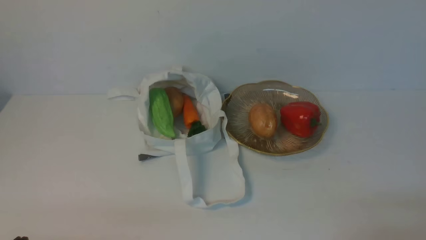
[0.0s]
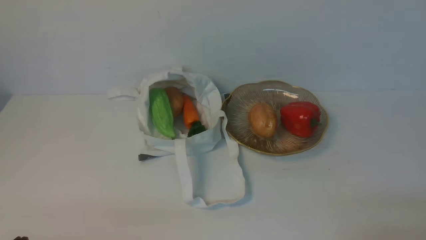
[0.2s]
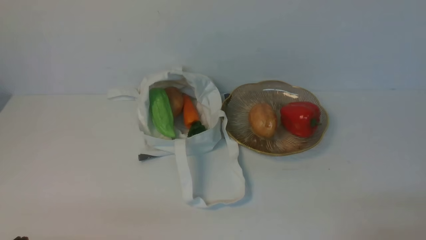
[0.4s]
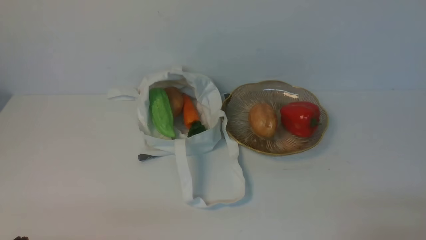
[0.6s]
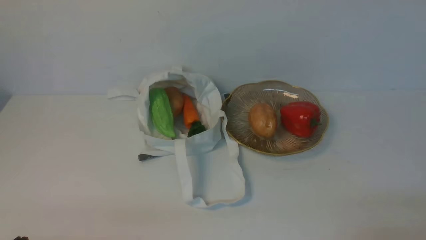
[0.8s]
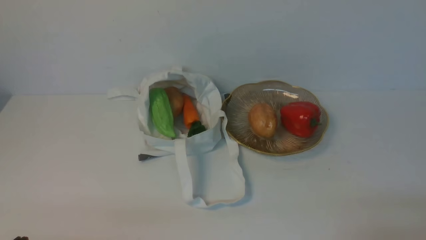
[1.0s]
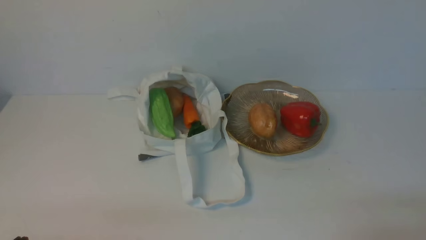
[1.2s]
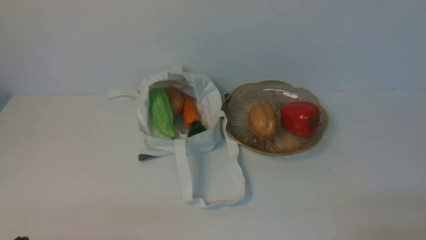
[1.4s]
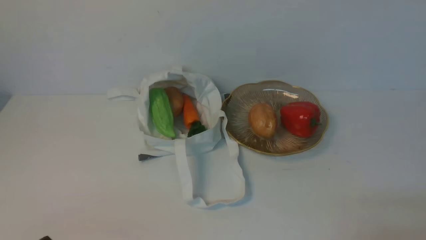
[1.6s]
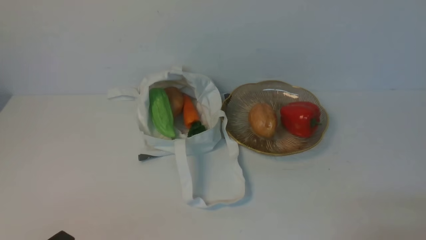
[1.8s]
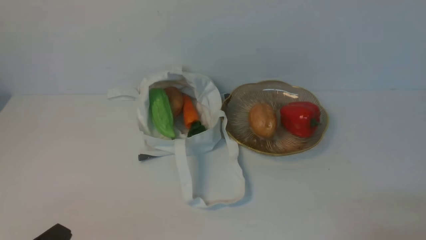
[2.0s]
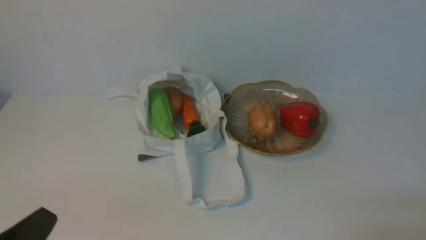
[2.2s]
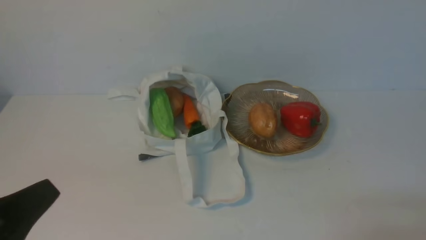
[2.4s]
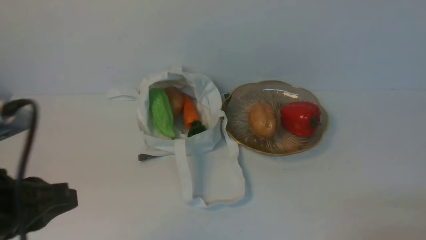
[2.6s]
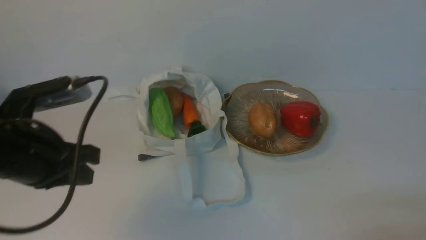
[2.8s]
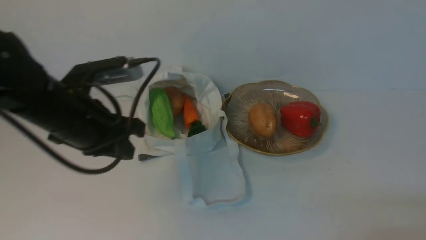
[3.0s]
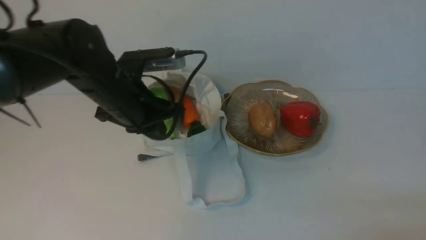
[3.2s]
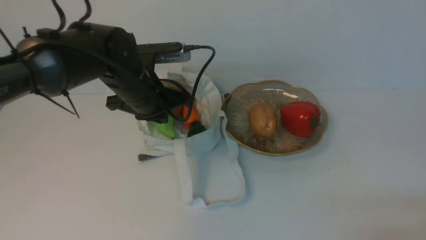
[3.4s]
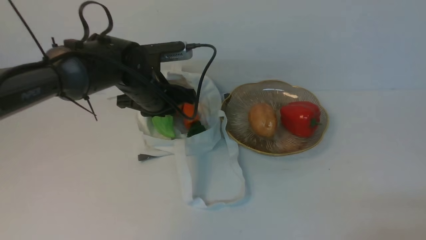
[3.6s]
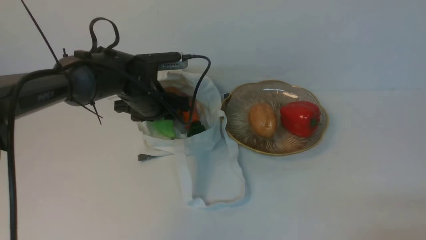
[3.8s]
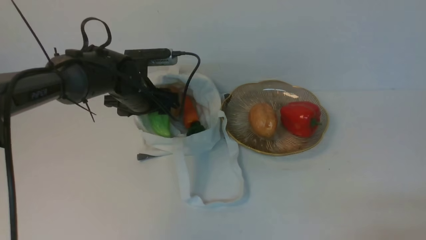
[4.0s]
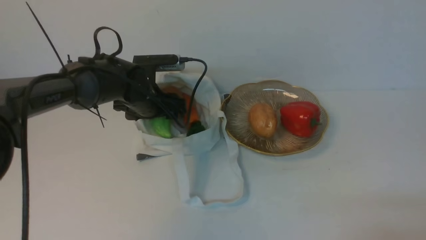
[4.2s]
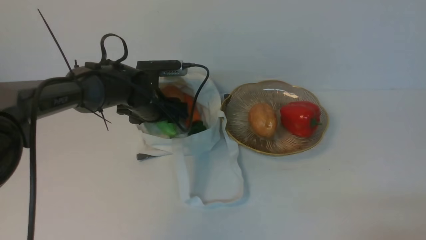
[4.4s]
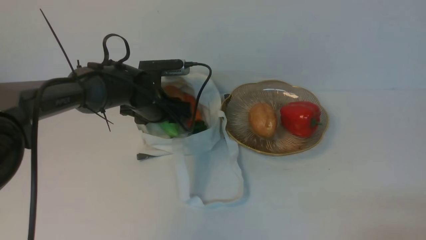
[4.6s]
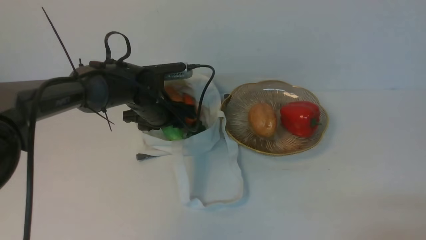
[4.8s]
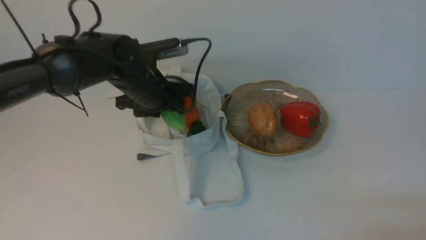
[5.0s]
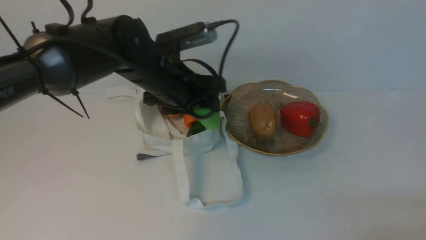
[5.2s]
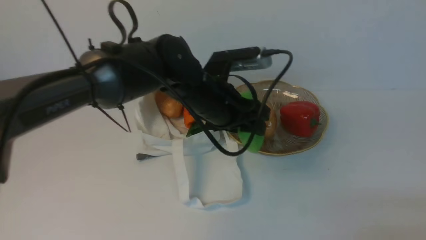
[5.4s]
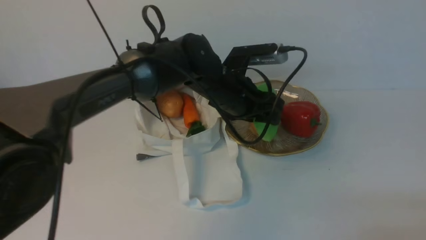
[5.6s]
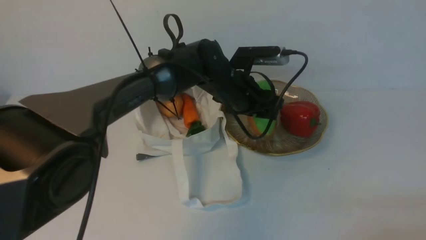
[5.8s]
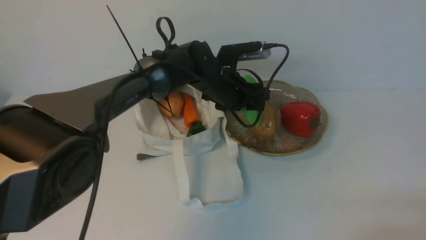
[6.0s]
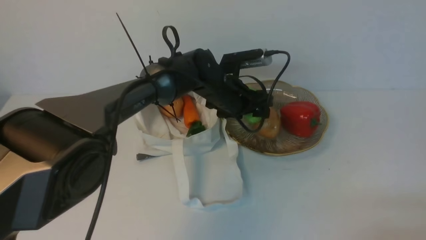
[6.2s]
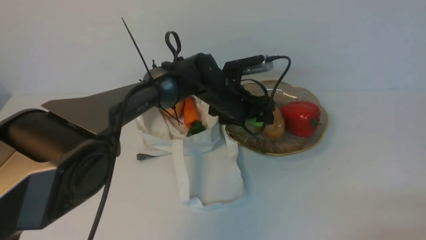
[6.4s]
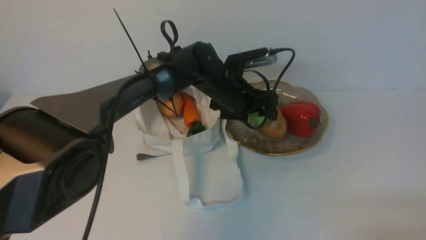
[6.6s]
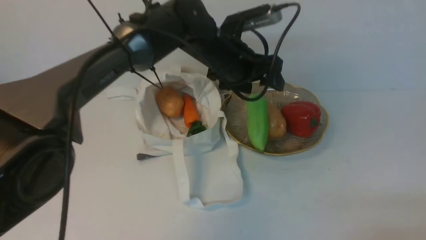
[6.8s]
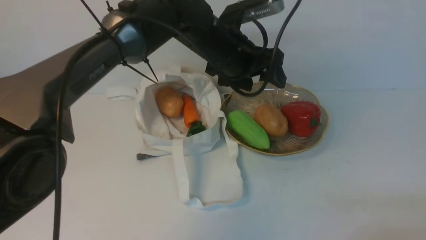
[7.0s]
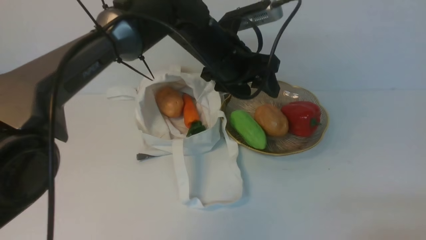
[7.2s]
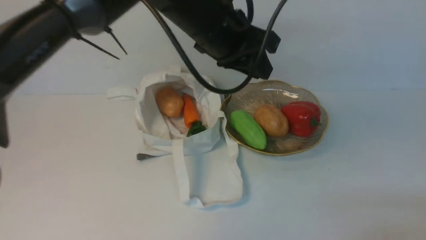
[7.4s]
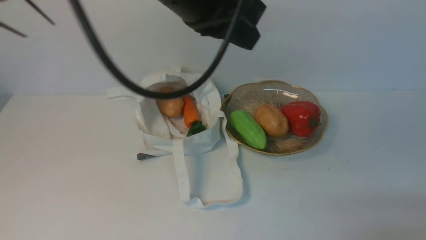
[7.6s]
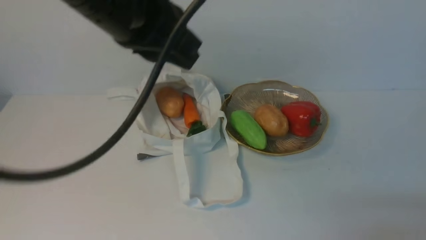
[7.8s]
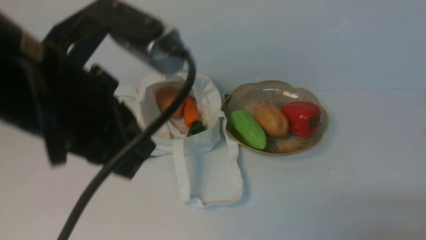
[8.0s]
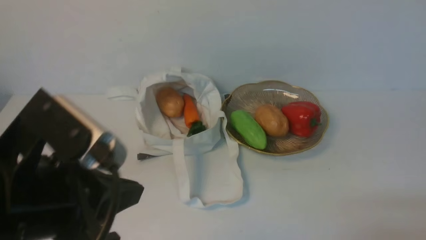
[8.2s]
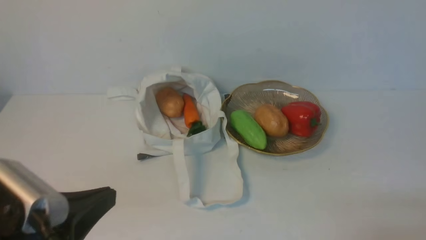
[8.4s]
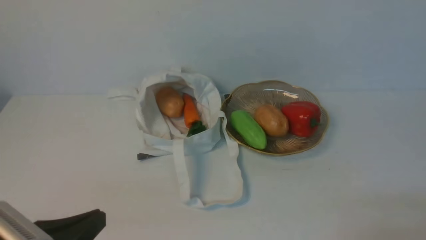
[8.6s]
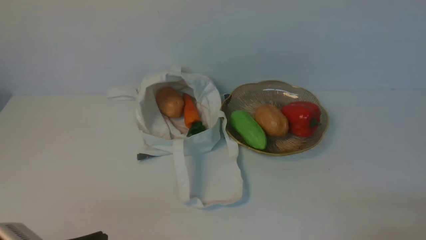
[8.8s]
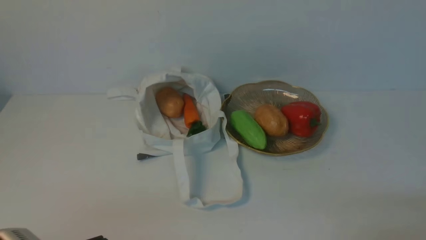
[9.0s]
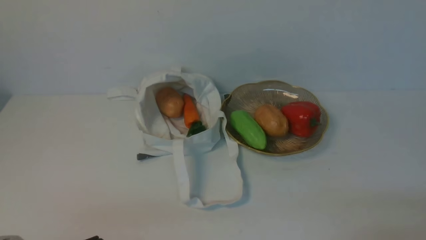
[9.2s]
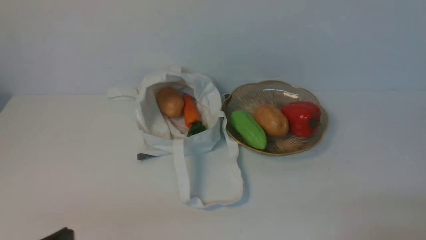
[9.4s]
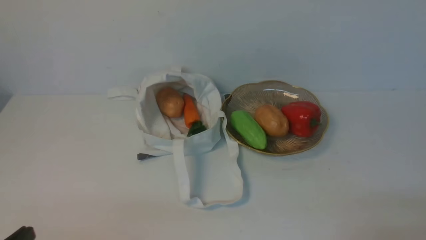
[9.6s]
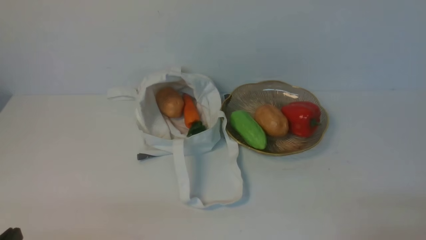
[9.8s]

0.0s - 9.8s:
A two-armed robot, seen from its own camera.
Task of the whole recording: take vegetables from cloth bag on white table place on plate.
Step, 0.0s - 4.6s: Grasp the bitter melon with left gripper.
Step, 4.8s - 6.8s: Place the bitter melon on the plate with left gripper.
1.4s - 2.8s: The left gripper goes roughly 20 cm upward and forward.
2.8s - 4.2s: The left gripper shifts approximately 30 cm forward and downward, and opens up.
4.2s - 5.6s: The left gripper goes roughly 15 cm to the right and upward.
7.0s - 8.4s: The left gripper moves backward and to the left, about 35 cm, and closes up.
8.4s - 9.8s: The left gripper goes about 15 cm downward, to the left and backward.

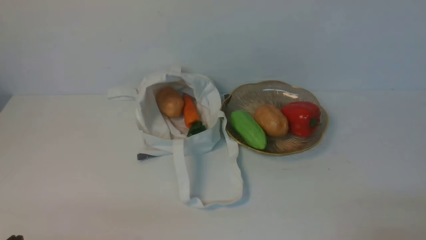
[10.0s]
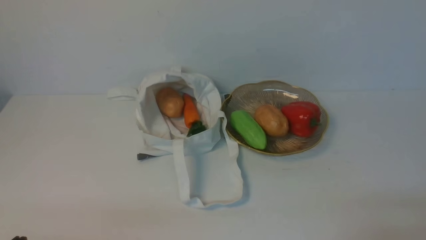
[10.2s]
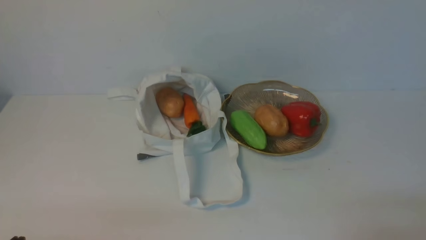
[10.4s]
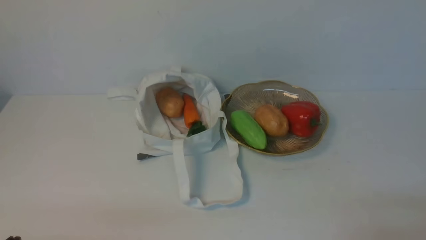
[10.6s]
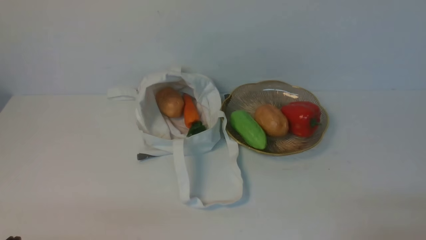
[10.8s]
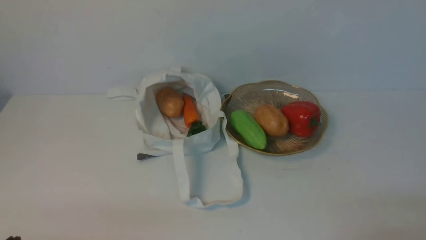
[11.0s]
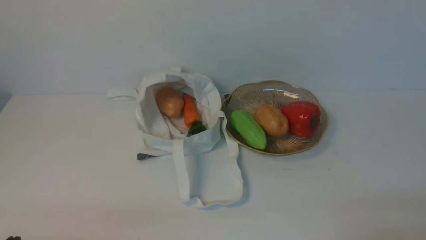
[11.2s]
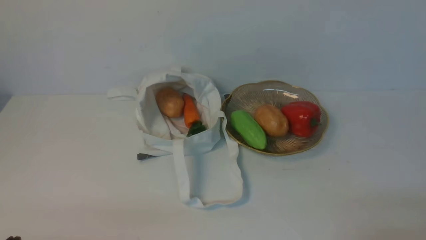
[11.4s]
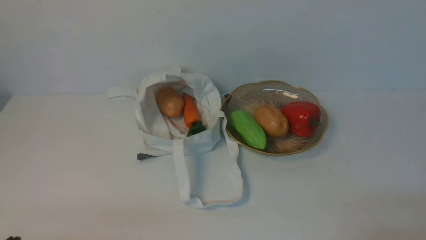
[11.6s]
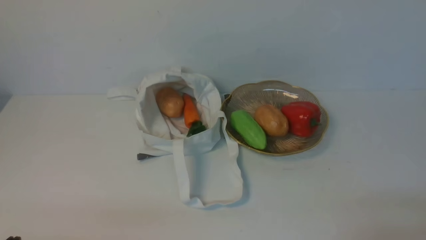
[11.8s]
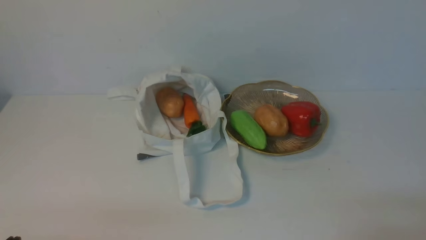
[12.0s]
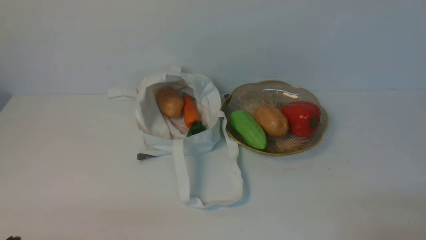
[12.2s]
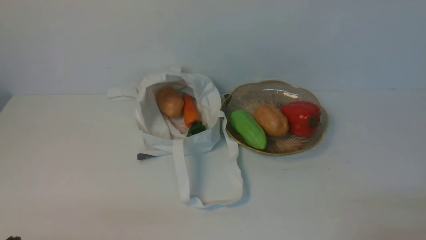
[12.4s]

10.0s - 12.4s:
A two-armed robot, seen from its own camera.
Task of the whole recording: take vegetables from cloth bag on white table place on plate.
10.0s - 12.4s: Neither gripper changes place.

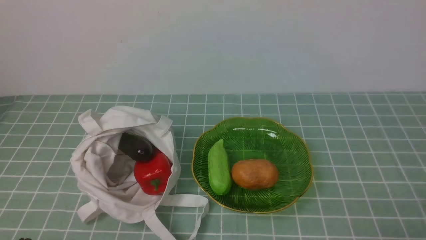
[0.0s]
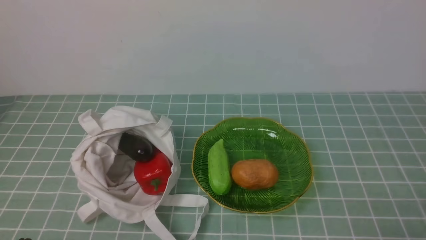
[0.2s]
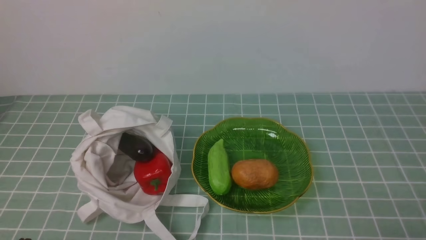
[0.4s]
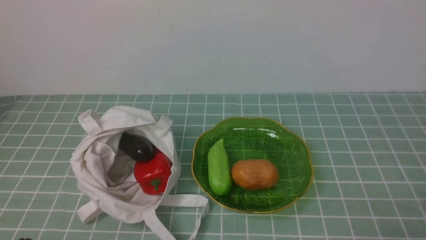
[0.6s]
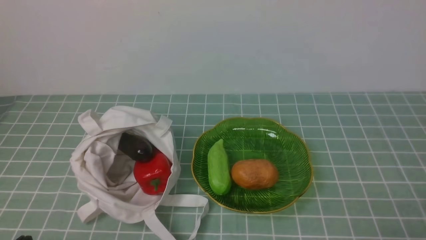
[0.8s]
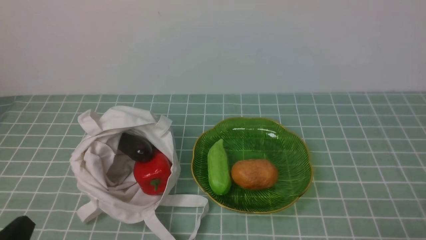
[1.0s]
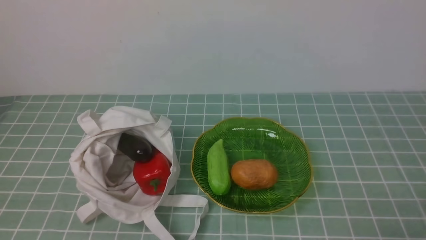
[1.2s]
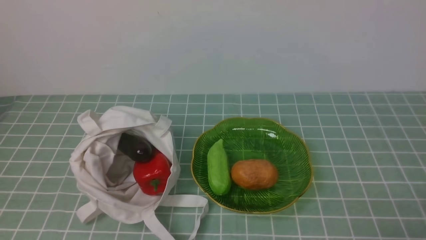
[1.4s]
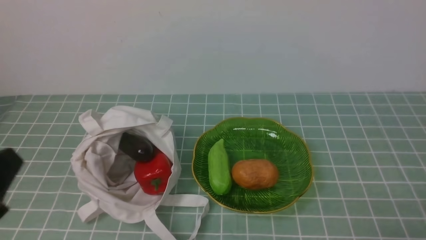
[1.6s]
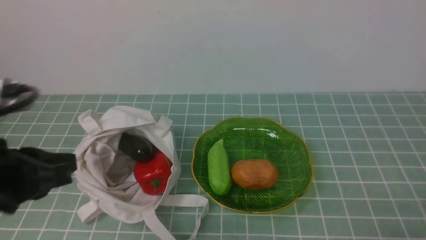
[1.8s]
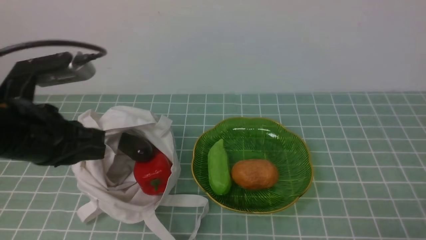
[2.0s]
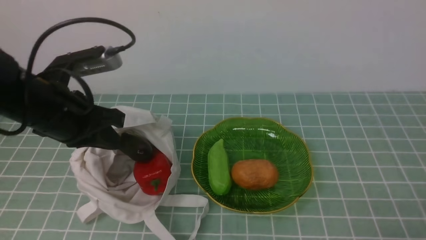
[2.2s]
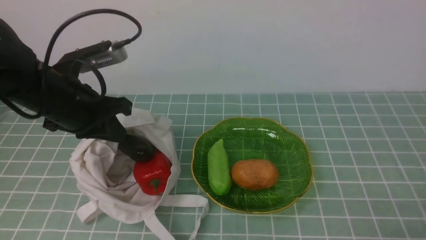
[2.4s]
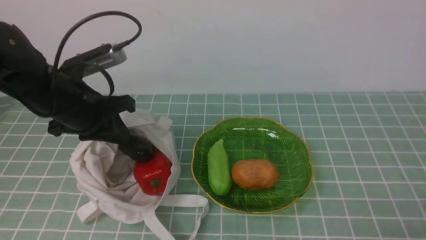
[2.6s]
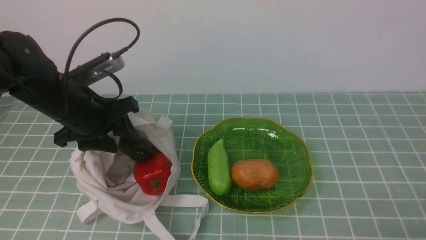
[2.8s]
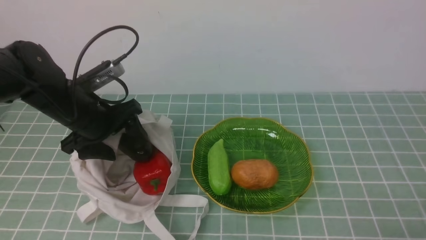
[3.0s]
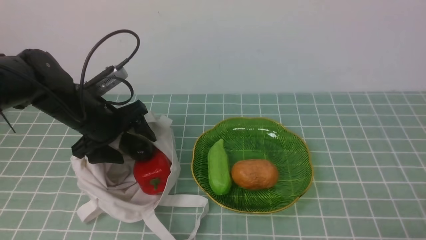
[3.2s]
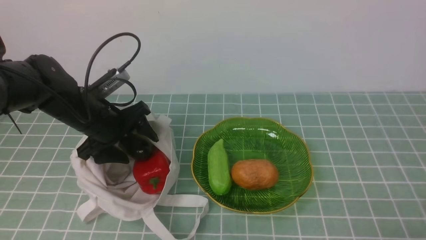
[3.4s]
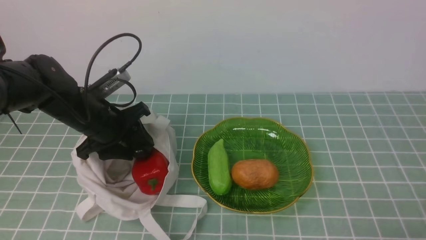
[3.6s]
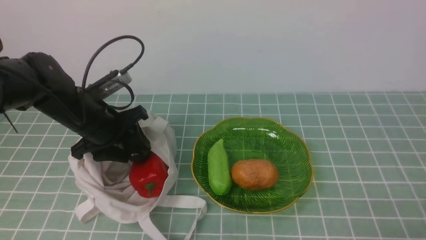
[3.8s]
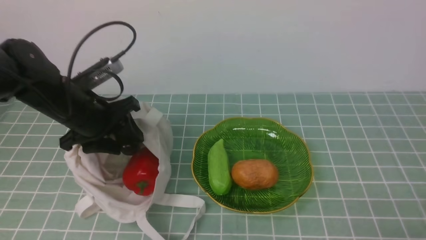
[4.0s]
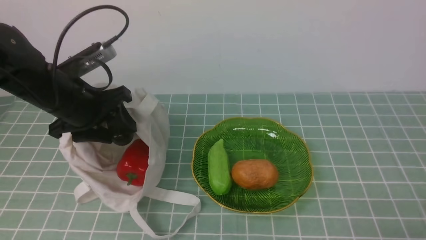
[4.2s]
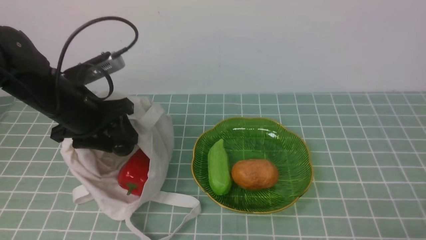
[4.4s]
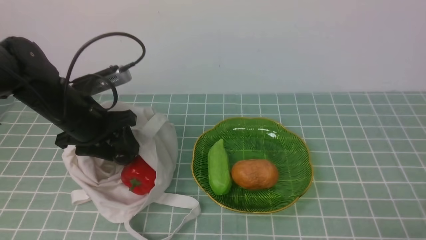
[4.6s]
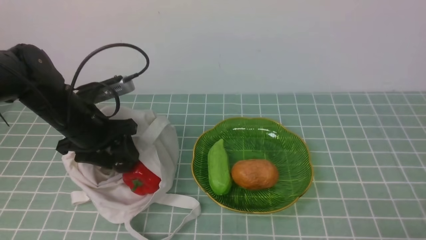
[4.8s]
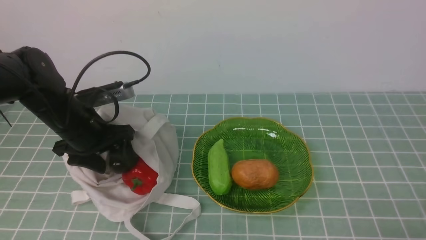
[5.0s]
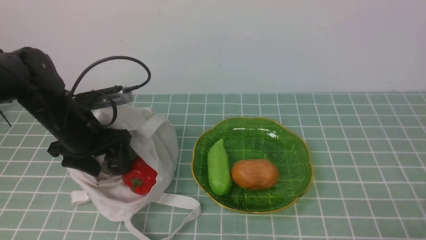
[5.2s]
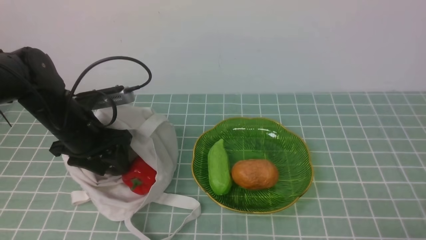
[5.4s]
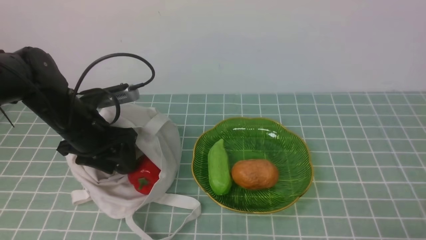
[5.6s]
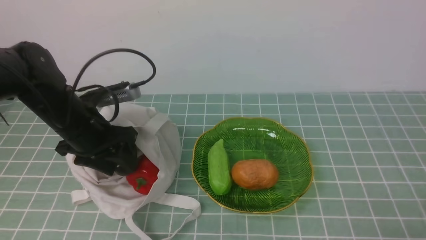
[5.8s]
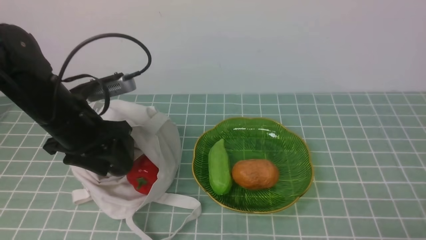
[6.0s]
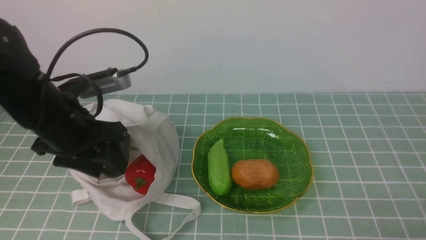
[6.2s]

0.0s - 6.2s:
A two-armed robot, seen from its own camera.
Task of the whole recording: take vegetables from cloth bag on blue coffee tablecloth place on plate.
Step, 0.0s - 3.6s: Grasp the eggplant with left gripper.
0.0s - 1.6s: The left gripper moves upward, approximately 15 cm.
1.6s - 3.2s: The left gripper travels forward by about 25 cm, and opens.
3.2s - 4.6s: The grippers stay close to where they were, moving slightly.
4.6s - 6.2s: The left gripper heads backward, covering roughly 5 cm.
